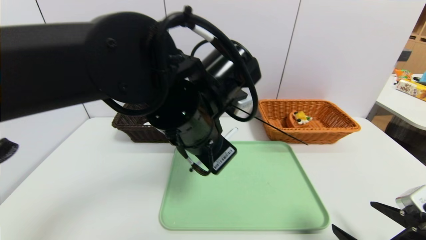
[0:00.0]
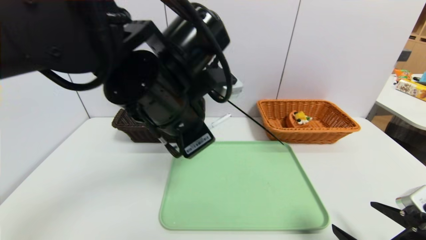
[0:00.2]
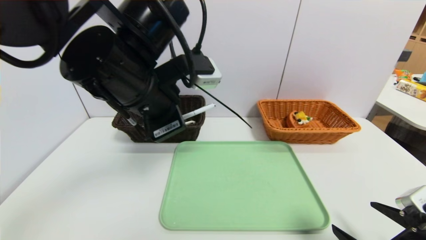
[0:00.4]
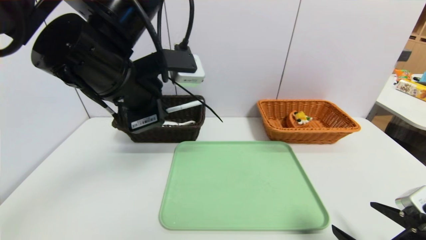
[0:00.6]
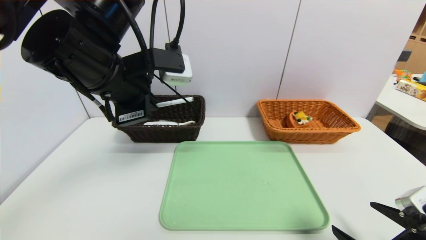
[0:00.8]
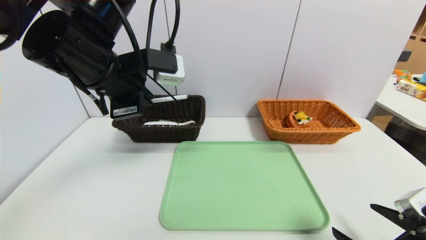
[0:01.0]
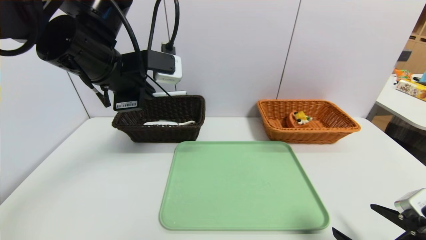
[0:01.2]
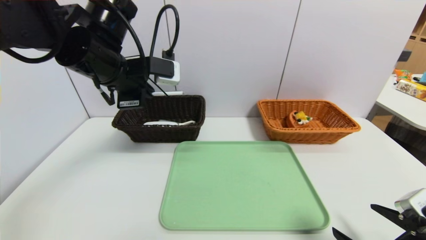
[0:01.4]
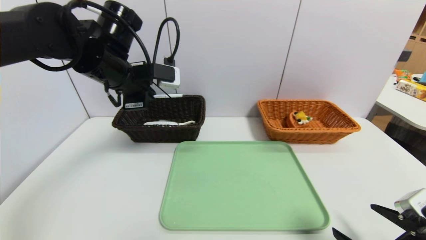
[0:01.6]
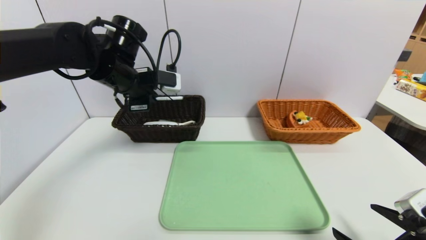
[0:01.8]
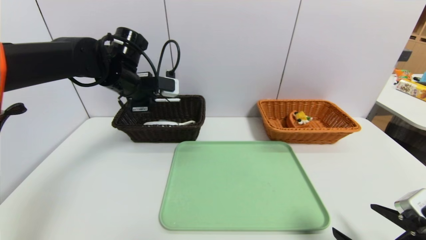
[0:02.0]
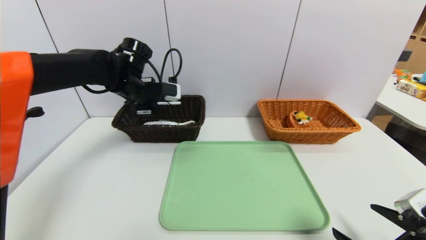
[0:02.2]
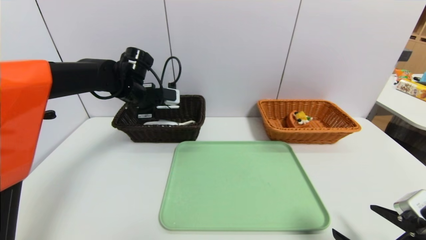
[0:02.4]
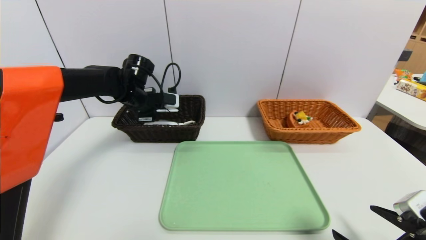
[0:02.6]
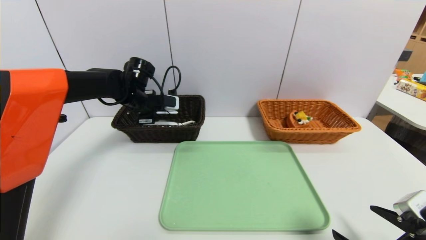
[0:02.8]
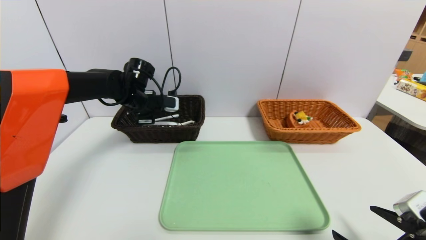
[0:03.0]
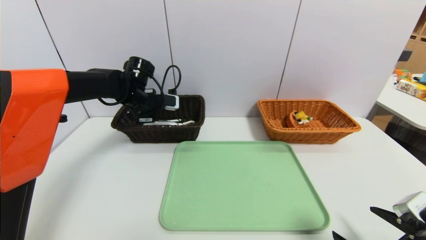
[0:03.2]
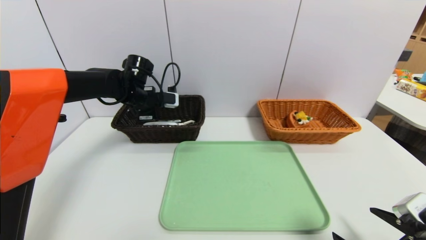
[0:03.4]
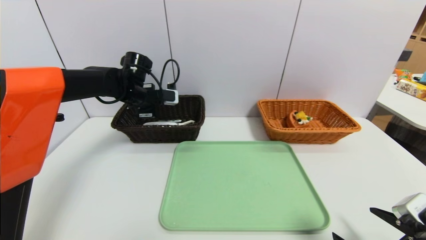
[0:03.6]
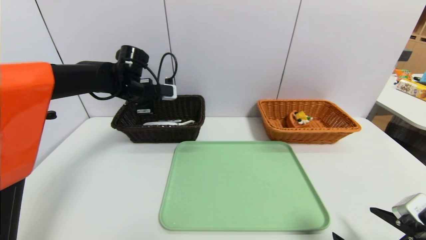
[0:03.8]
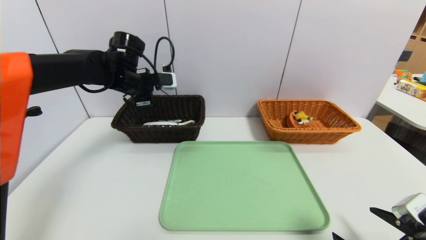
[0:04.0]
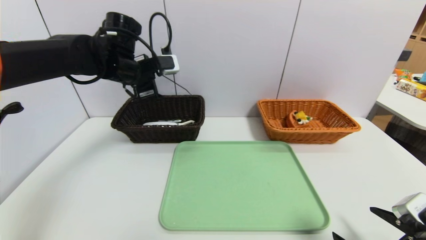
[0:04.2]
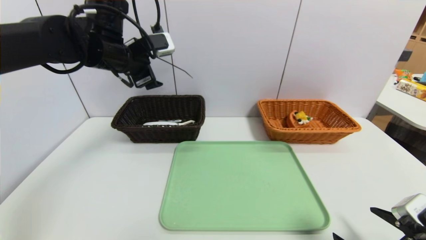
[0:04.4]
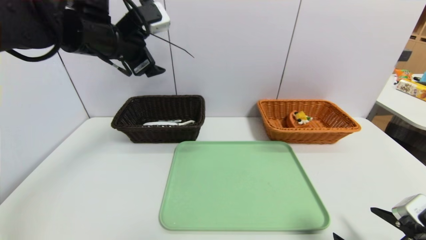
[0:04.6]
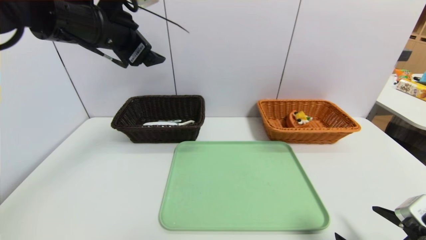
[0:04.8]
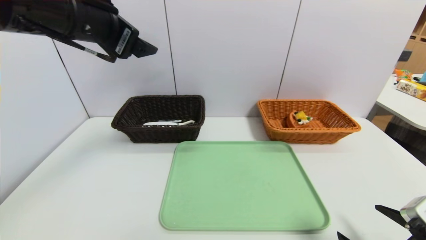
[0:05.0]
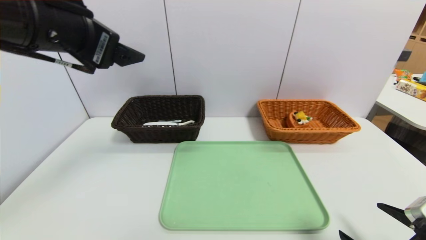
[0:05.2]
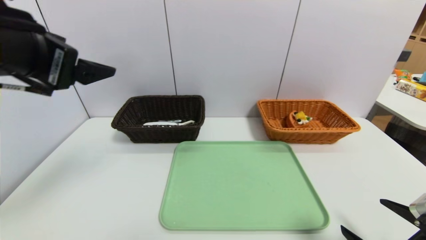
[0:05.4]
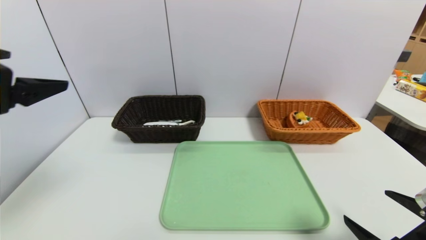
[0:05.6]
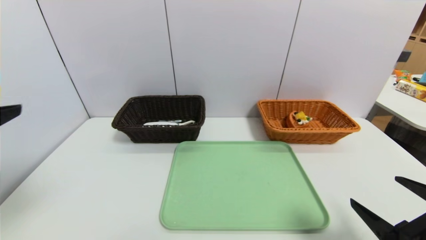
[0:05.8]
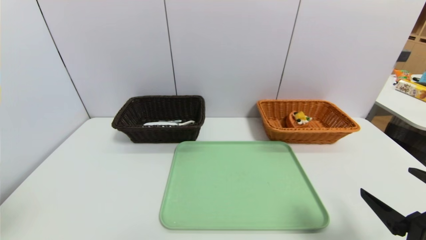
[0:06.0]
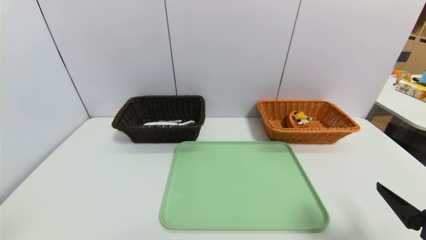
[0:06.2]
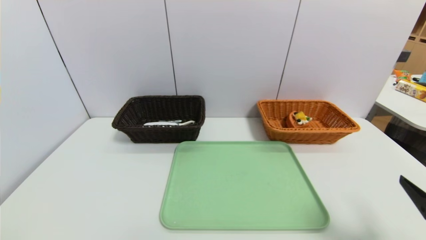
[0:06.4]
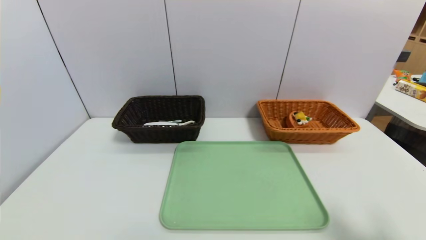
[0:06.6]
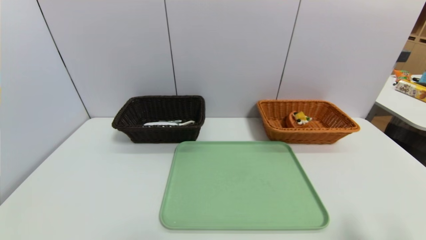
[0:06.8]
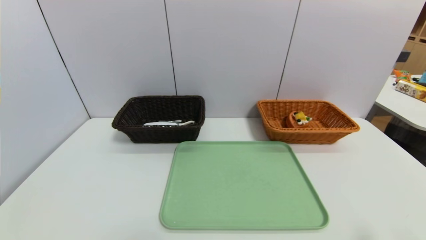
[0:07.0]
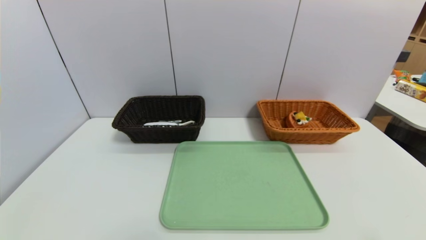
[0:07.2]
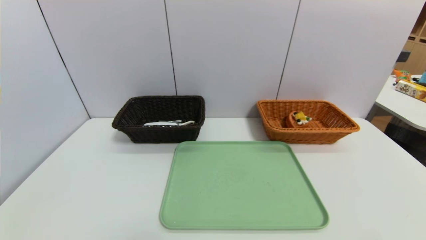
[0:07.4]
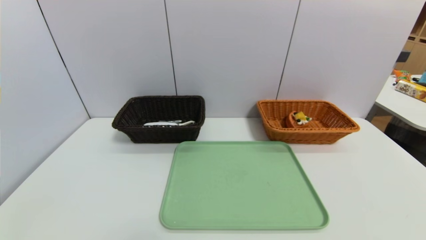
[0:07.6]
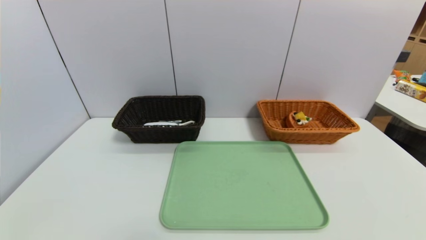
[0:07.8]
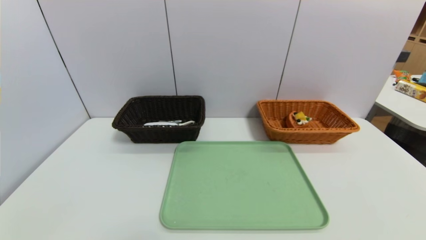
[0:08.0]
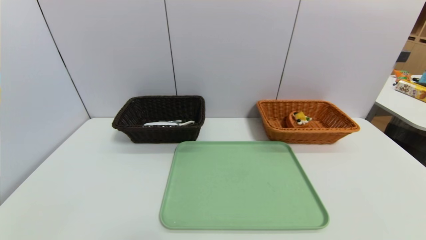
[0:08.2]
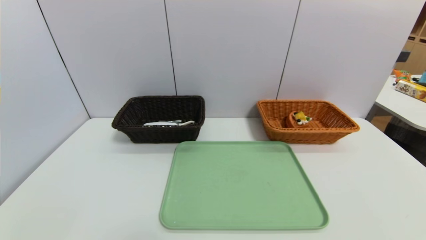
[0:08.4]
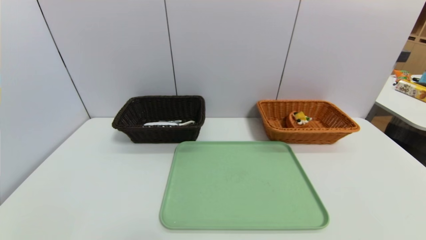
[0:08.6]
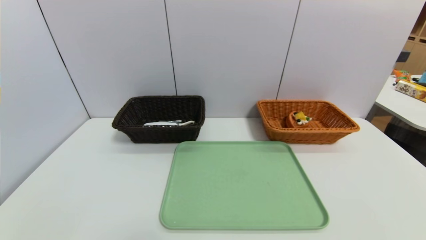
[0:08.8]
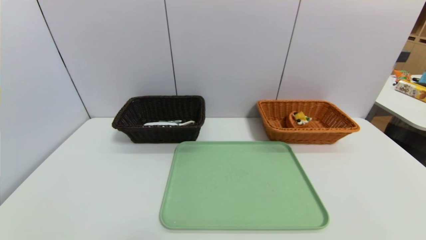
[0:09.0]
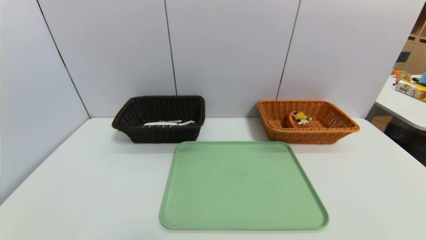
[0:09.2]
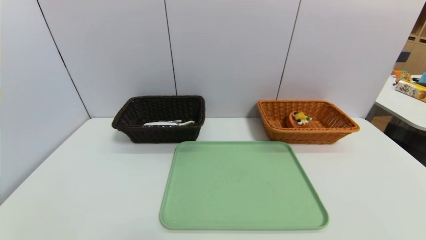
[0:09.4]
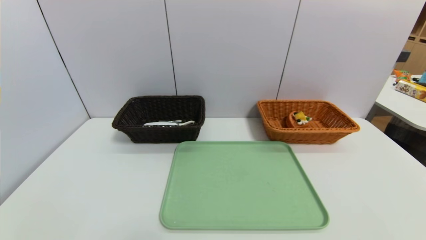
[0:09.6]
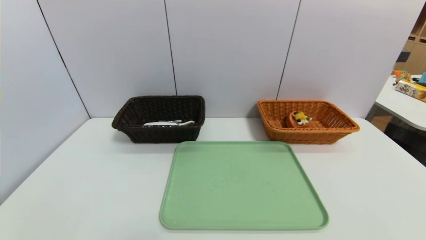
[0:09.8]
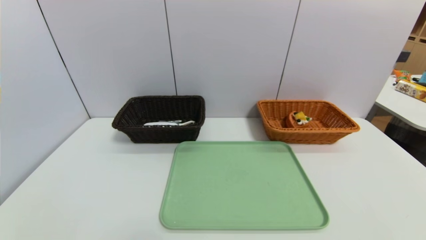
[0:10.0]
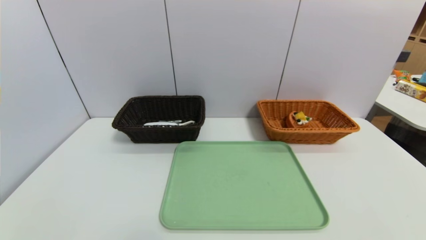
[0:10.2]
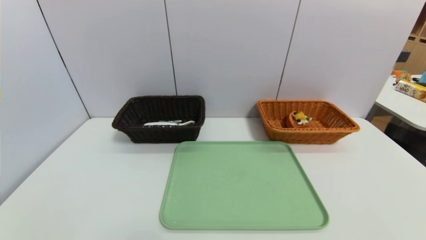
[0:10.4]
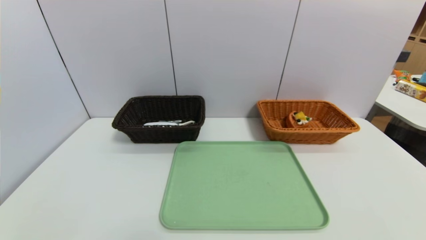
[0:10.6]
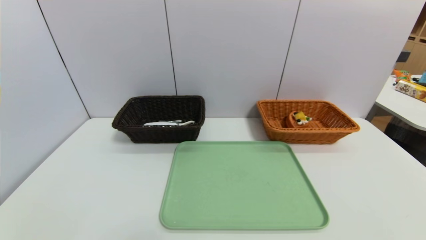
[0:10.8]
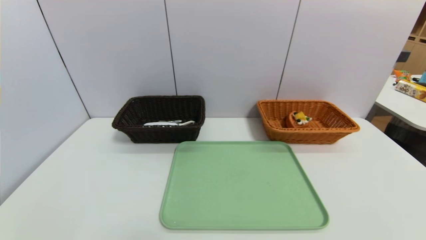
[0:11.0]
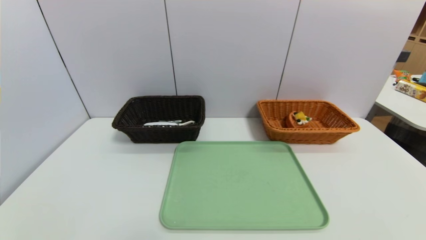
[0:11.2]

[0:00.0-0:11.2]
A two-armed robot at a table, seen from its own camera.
Task of the whole recording: place the food in the right basket with the right gripper, and place the non food items in the left basket with the left gripper.
Step, 0:00.0 to 0:03.6: Grasp the ballpoint pen and put it in the left basket.
0:00.0 to 0:01.6: The left gripper heads to the left and forward, covering roughly 20 cm.
0:01.6 to 0:03.2: The left gripper is displaced forward and downward by approximately 15 cm, and opens its fingers.
0:03.2 to 0:04.8: The left gripper travels upward and backward by roughly 25 cm, and opens up.
0:04.8 to 0:06.4: The right gripper moves upward, roughly 5 cm, while the left gripper heads backward and to the left, covering roughly 35 cm.
0:06.4 to 0:08.0: The right gripper travels backward and downward by some 10 cm.
0:09.6 to 0:11.2: The two grippers keep their place.

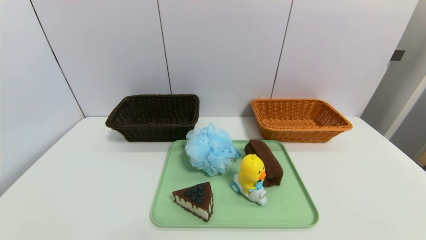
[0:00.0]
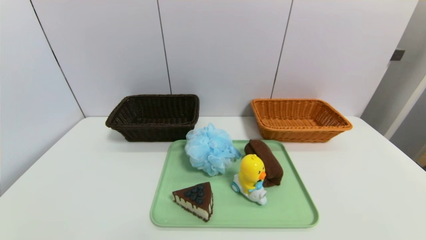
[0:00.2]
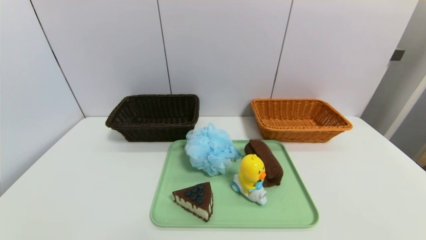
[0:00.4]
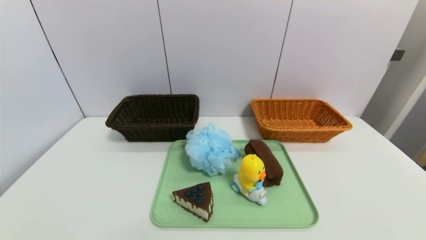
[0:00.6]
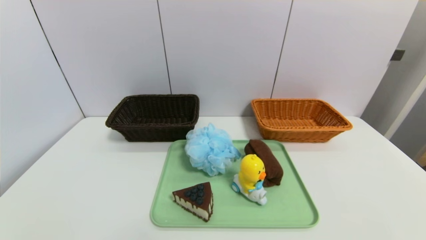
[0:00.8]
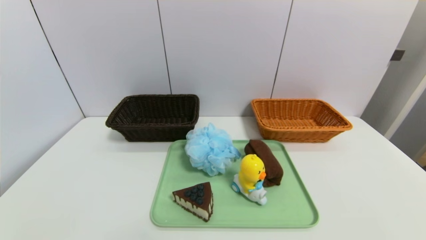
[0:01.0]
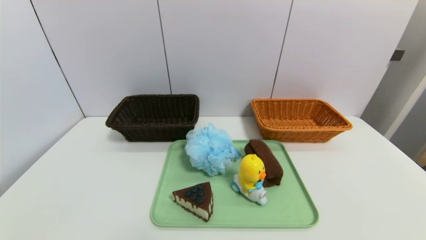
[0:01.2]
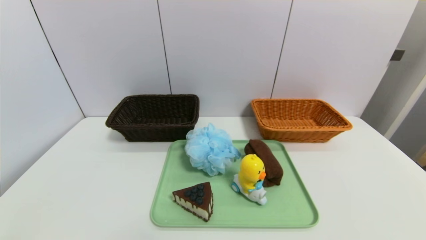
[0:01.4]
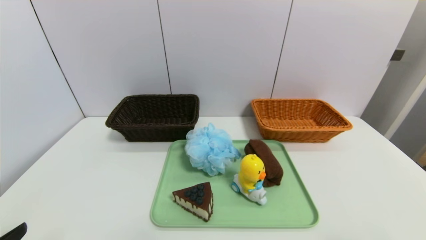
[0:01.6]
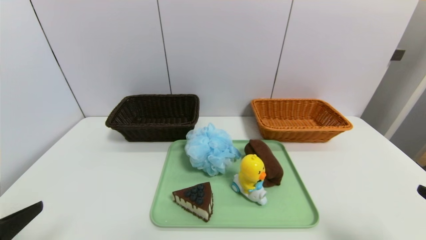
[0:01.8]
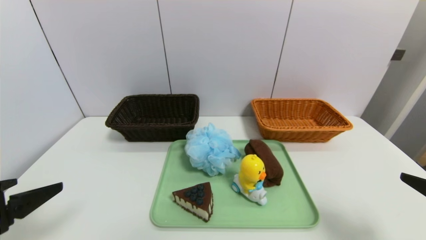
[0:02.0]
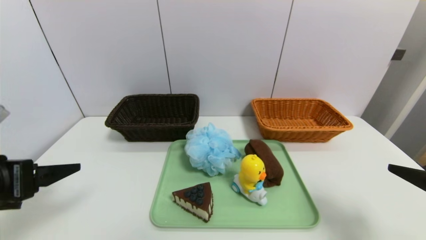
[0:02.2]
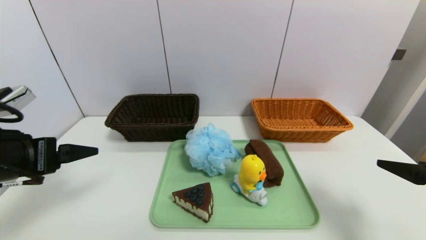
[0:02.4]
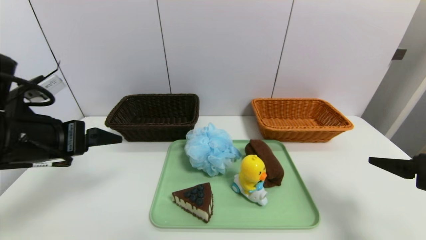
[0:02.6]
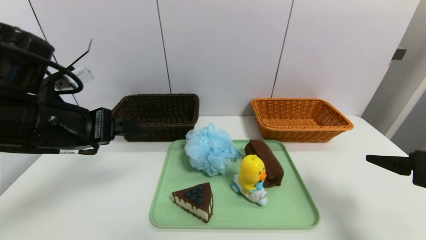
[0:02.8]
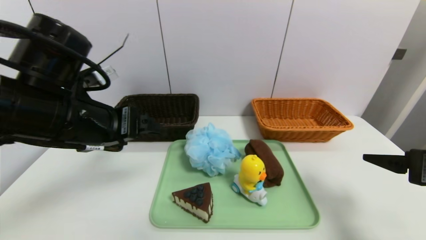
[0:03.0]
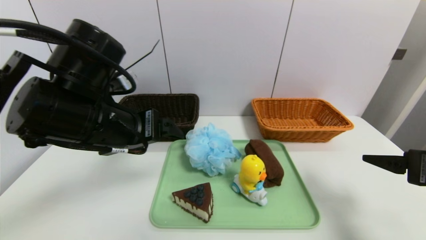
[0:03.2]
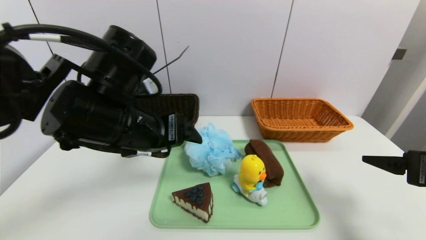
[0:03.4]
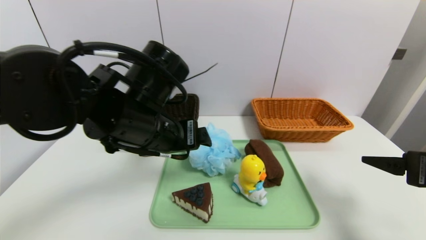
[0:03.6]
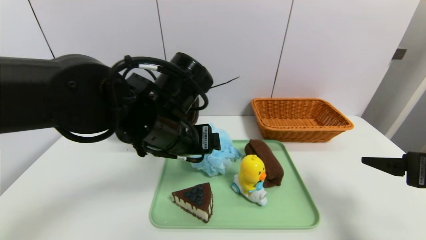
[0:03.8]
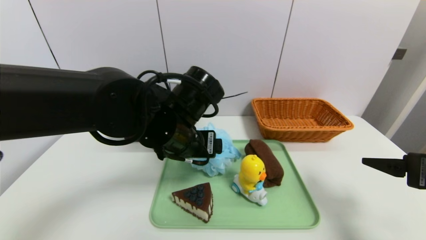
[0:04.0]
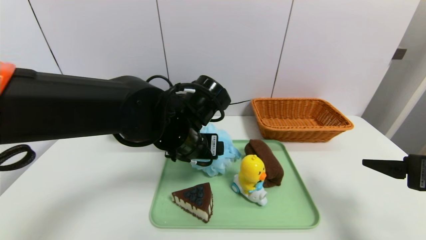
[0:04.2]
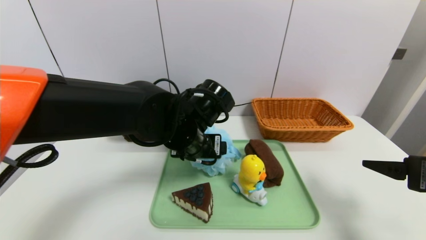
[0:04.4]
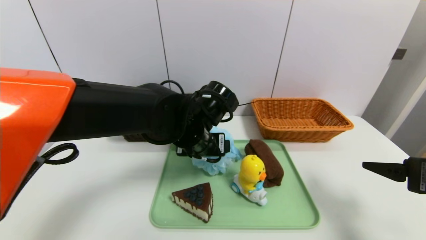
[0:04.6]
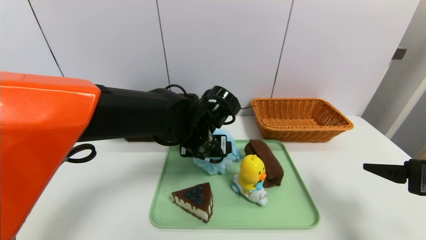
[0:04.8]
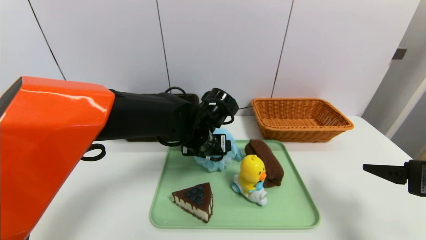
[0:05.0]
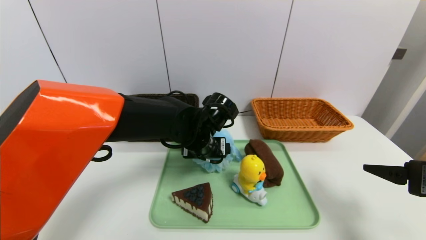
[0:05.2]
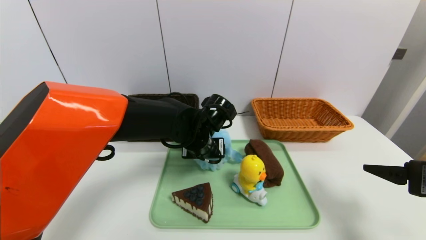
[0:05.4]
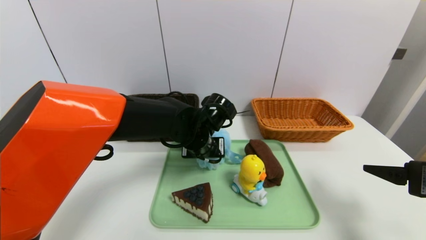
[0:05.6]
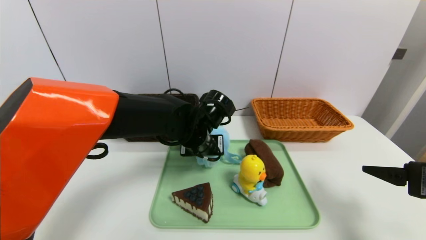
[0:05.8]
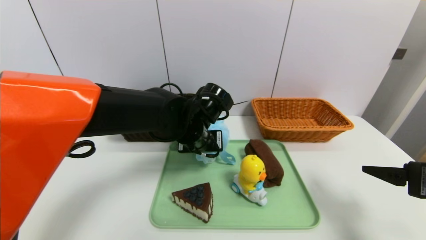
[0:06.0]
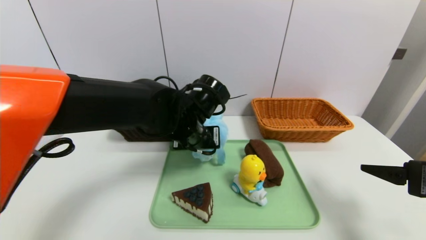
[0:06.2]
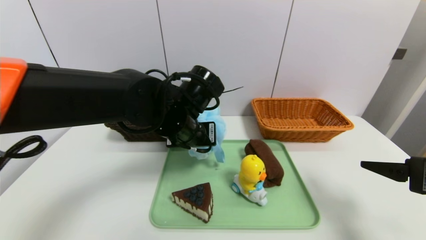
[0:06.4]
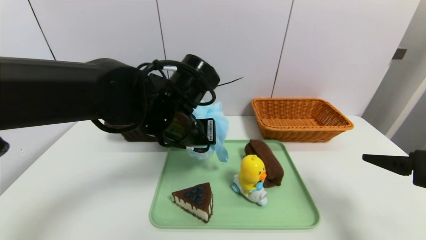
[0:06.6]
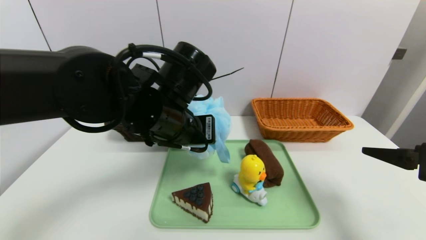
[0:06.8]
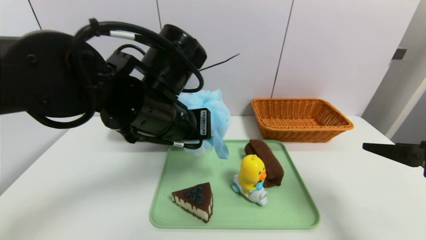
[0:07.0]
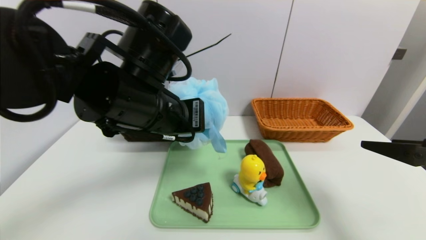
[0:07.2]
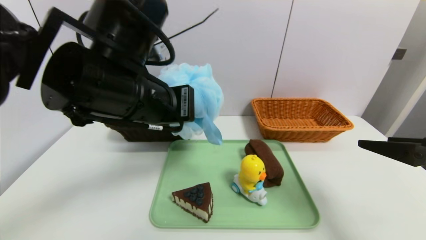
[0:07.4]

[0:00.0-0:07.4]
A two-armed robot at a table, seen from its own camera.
Task of the whole recording: place the food in the right basket with the right gripper, and place the non food items in the left basket with the left gripper.
0:01.4 to 0:03.0: The right gripper heads forward and upward, covering some 20 cm; the left gripper travels forward, upward and to the right by some 30 cm.
0:03.0 to 0:04.4: The left gripper shifts approximately 20 cm to the right, downward and forward.
0:04.4 to 0:06.0: The left gripper closes its fingers.
0:06.0 to 0:07.4: The left gripper is displaced upward, backward and to the left by about 20 cm. The right gripper changes place by approximately 5 cm.
